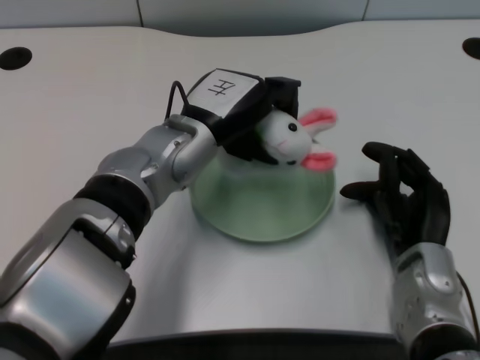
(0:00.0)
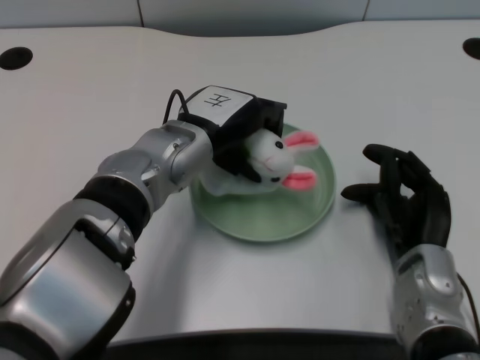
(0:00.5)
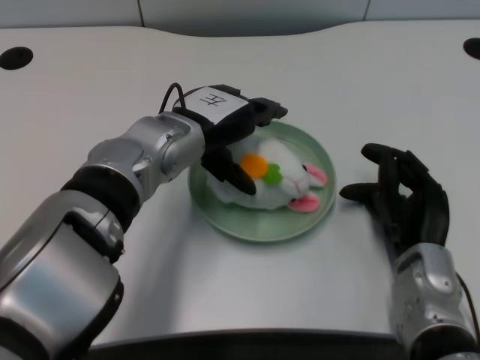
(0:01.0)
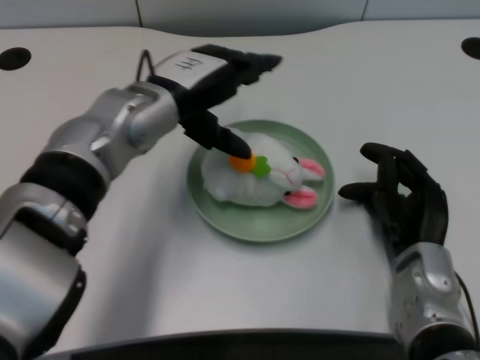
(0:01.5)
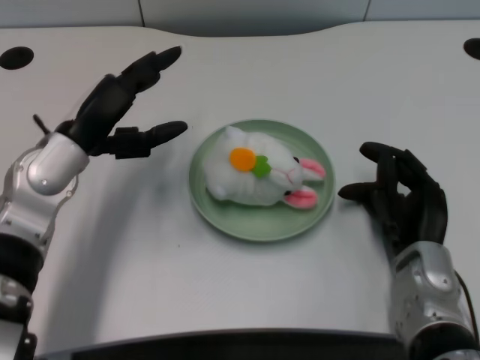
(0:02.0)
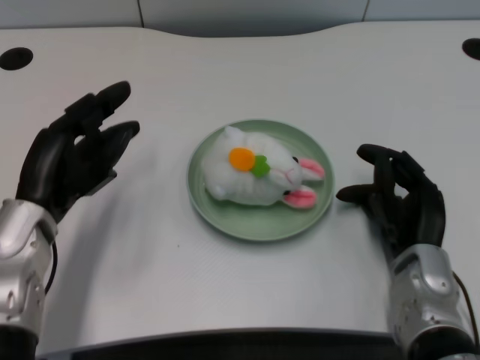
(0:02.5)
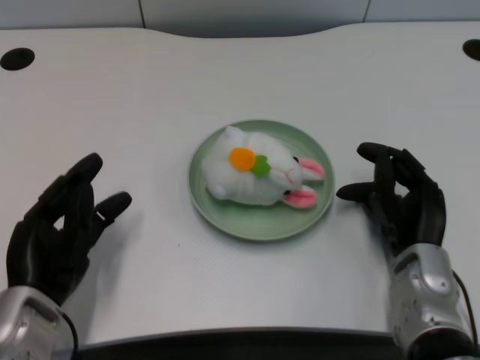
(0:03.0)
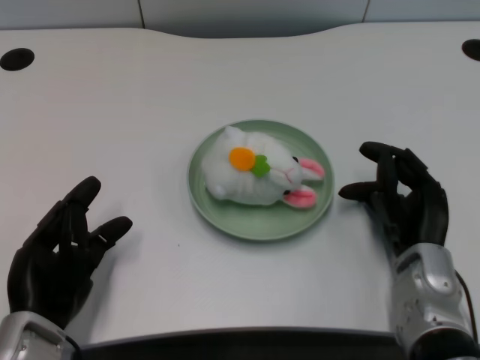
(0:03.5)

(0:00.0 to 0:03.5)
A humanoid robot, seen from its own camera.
Task of the whole recording: pick up the rabbit doll from the table and place it on the plate.
0:00.0 - 0:02.0: The left hand travels to the left by roughly 10 cm.
0:02.0 - 0:03.5: The left hand travels backward and downward by approximately 15 cm.

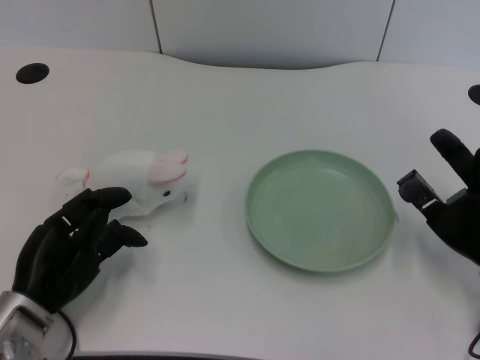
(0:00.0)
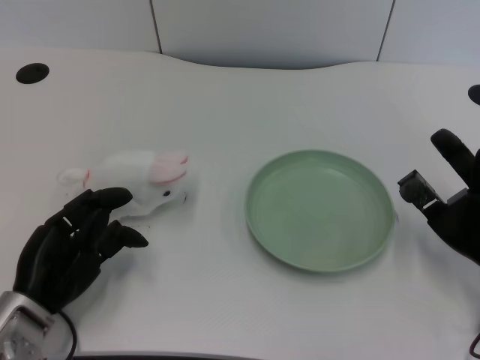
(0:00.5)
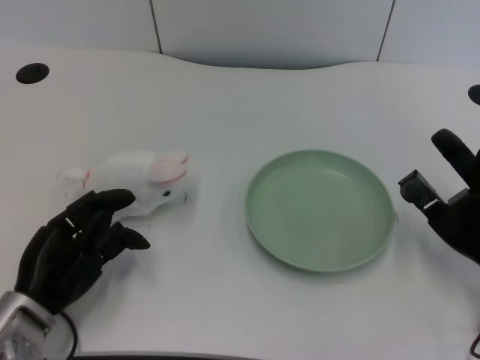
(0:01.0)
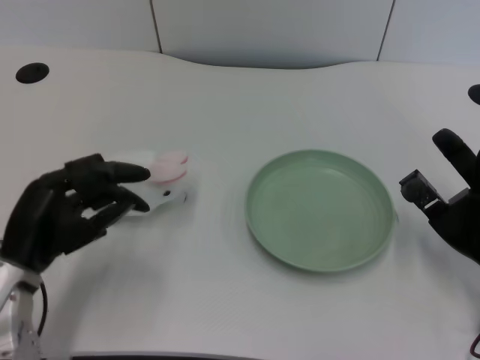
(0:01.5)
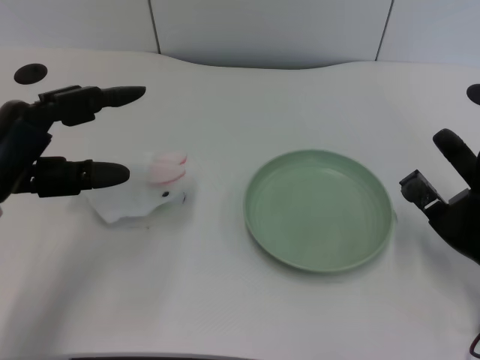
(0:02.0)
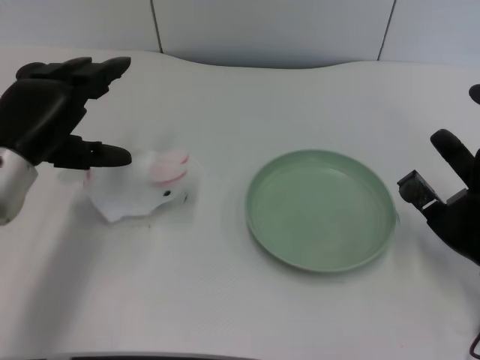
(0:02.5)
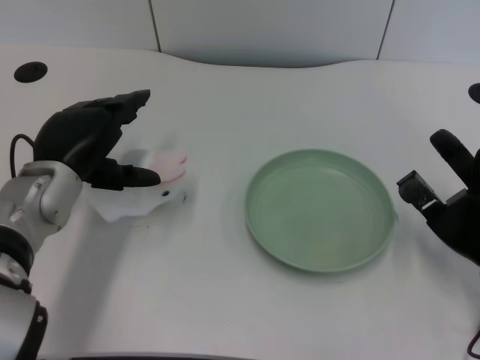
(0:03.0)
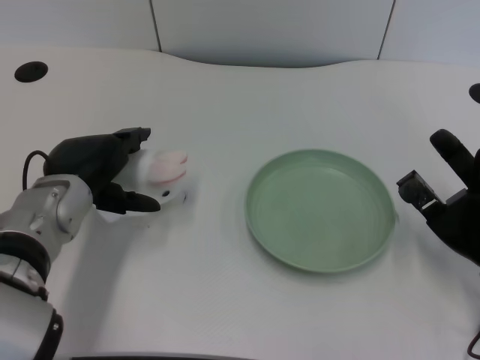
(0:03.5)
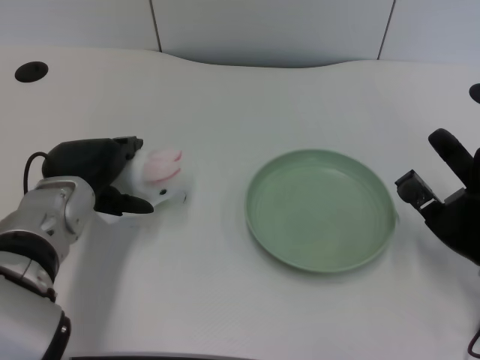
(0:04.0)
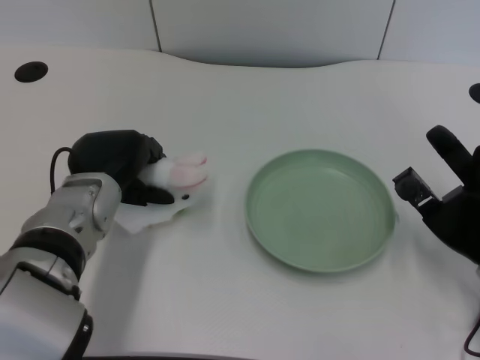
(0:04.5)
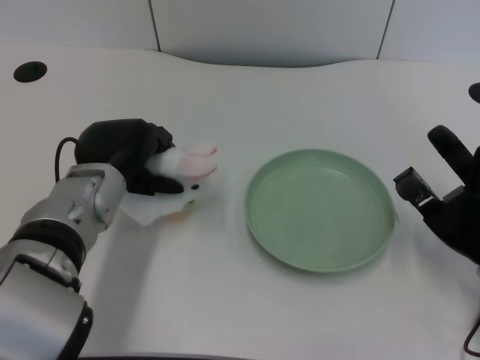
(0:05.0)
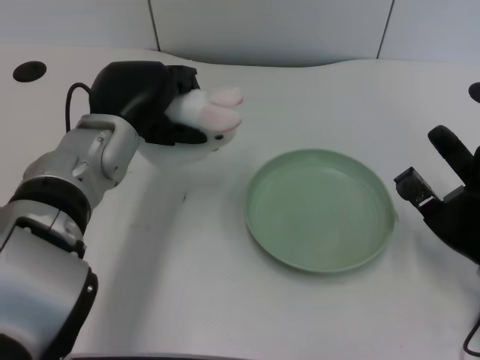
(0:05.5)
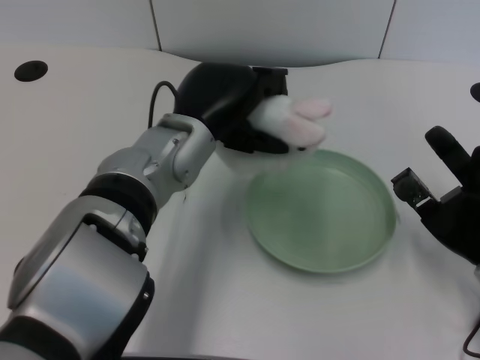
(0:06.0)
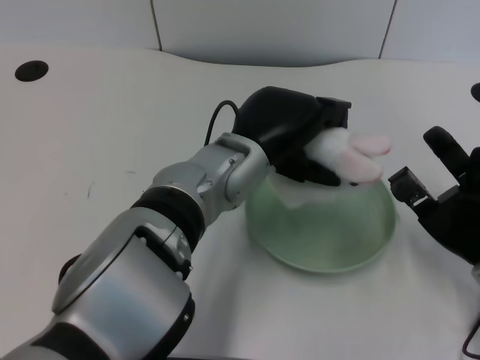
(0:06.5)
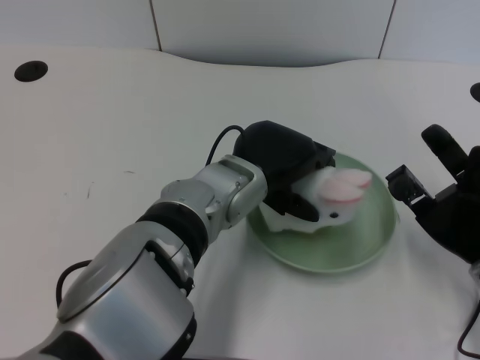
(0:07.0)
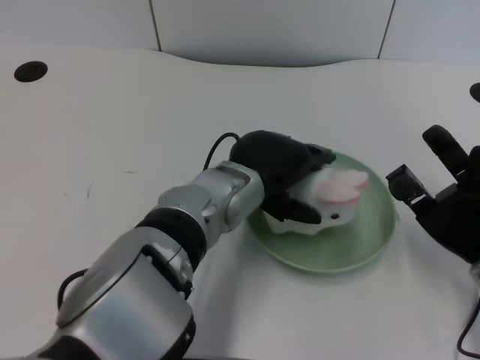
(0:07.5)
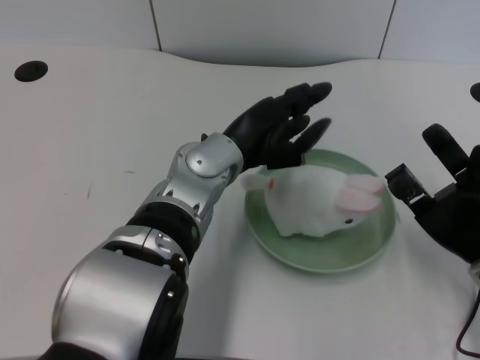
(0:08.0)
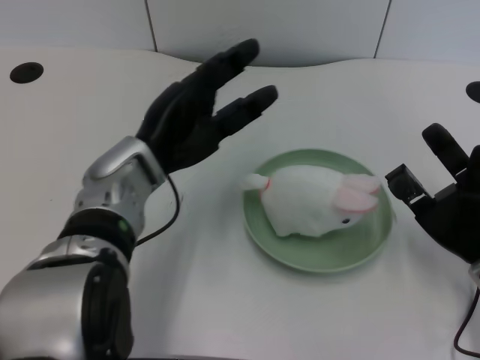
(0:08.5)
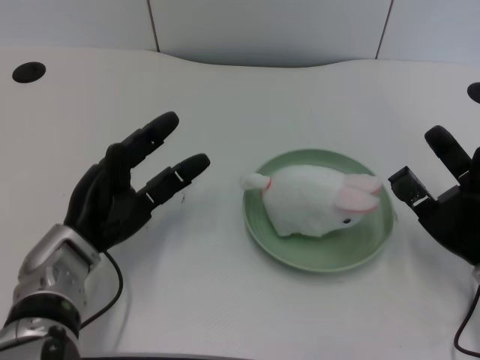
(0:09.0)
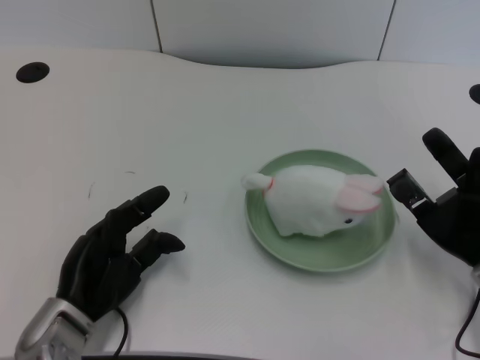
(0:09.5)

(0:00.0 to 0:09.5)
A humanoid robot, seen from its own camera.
Task of the whole recording: pick up the rabbit doll from the table and place it on the plate.
Step, 0:01.5 - 0:04.5: Grasp the rabbit doll with the left gripper.
Step, 0:05.5 - 0:07.5: Place the rabbit doll into the plate with the left gripper.
0:02.0 - 0:04.0: The left hand moves to the right, approximately 5 cm.
0:04.0 - 0:05.5: The left hand moves upward, some 5 cm.
0:05.5 - 0:07.5: The left hand heads to the right, covering about 10 cm.
0:07.5 - 0:09.5: The left hand shifts some 25 cm to the left, downward and backward.
